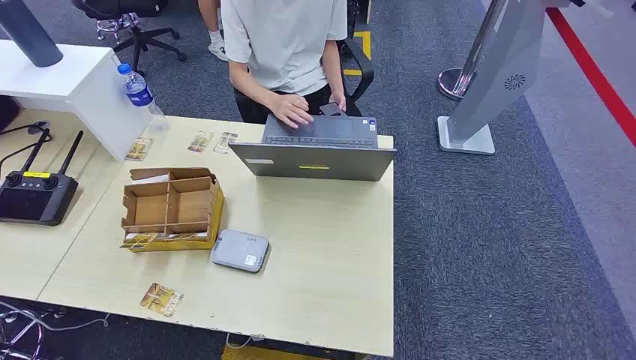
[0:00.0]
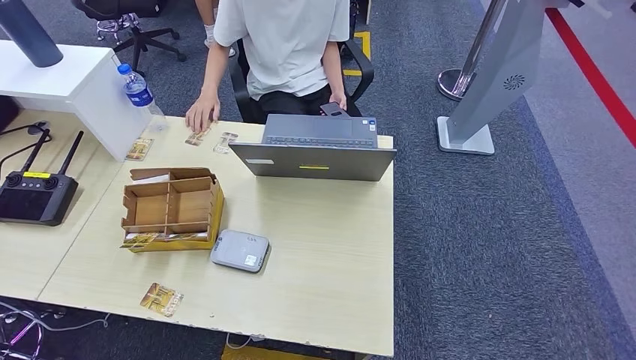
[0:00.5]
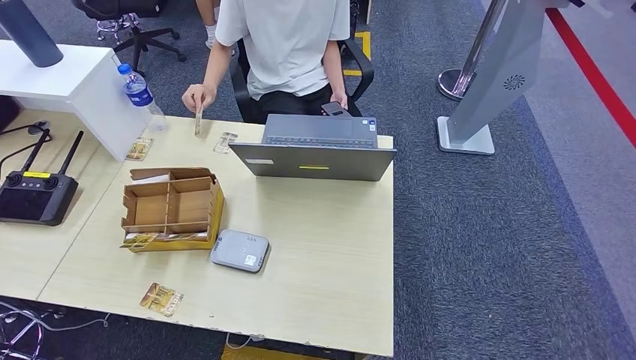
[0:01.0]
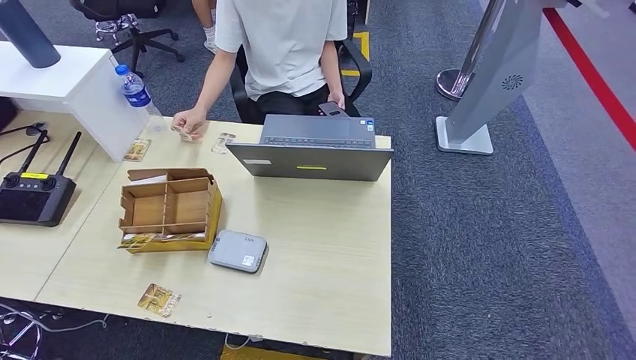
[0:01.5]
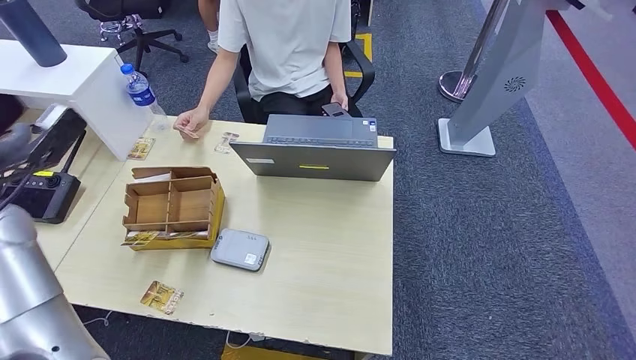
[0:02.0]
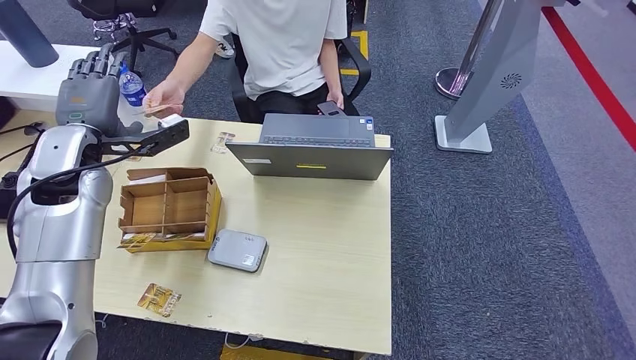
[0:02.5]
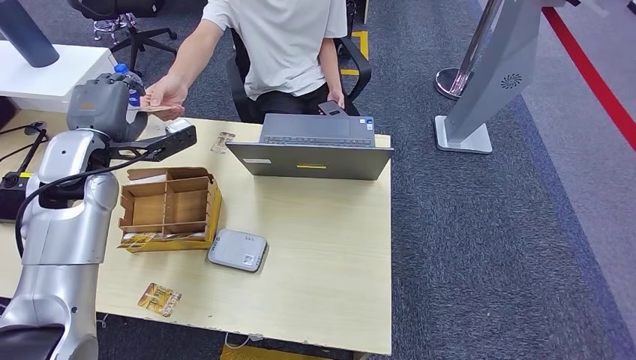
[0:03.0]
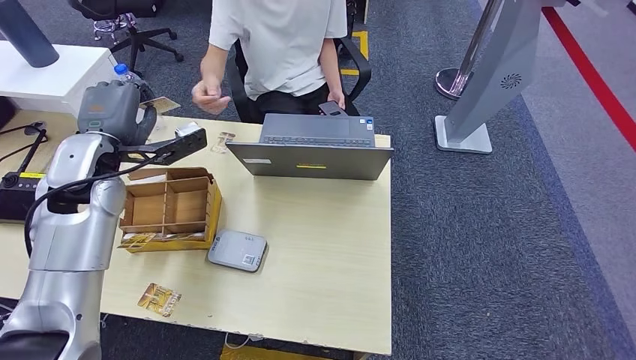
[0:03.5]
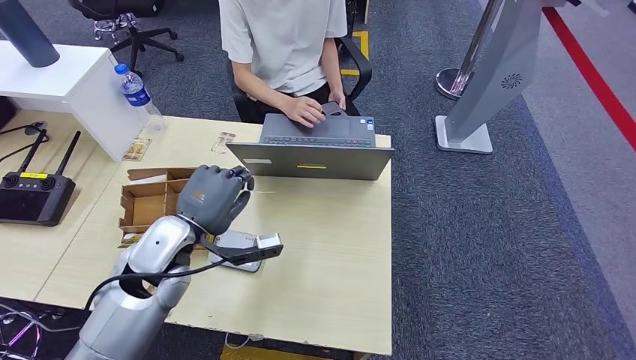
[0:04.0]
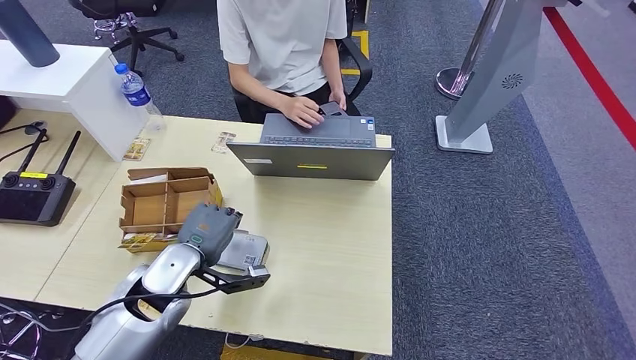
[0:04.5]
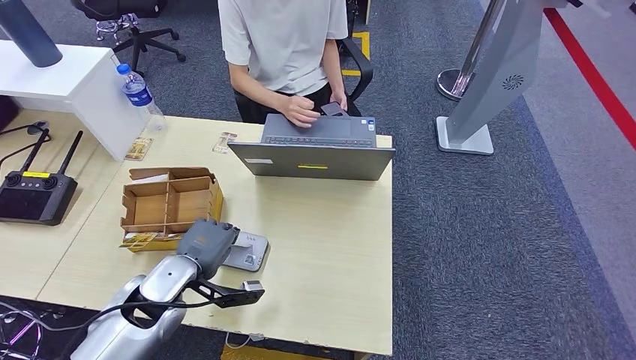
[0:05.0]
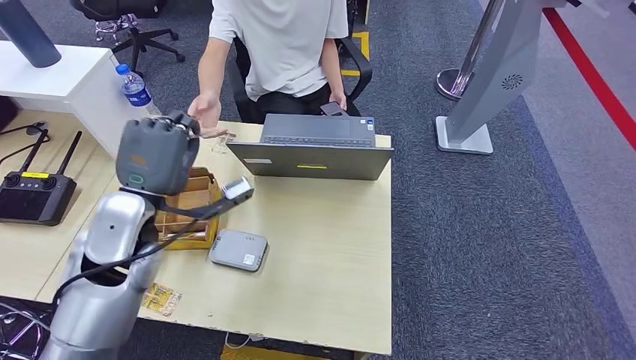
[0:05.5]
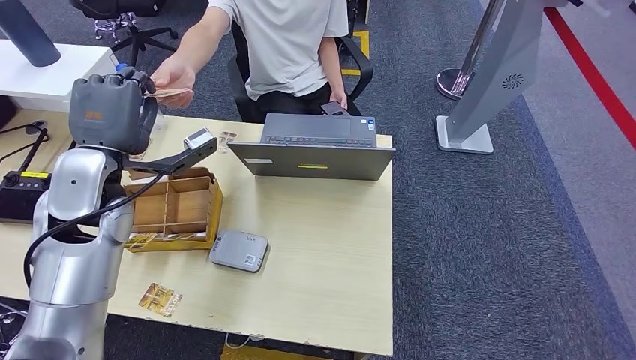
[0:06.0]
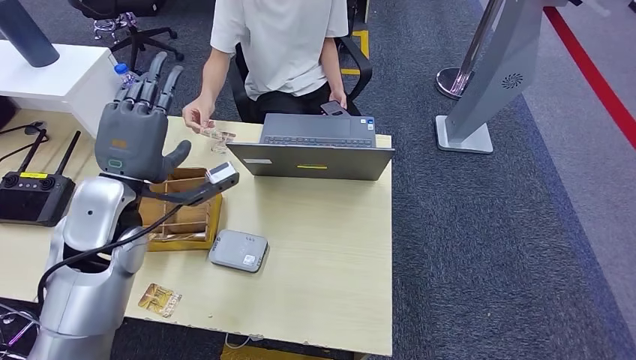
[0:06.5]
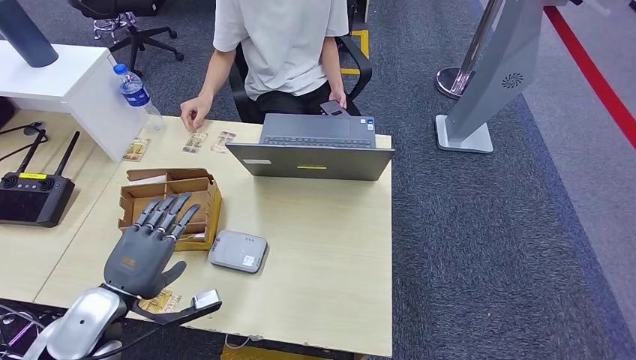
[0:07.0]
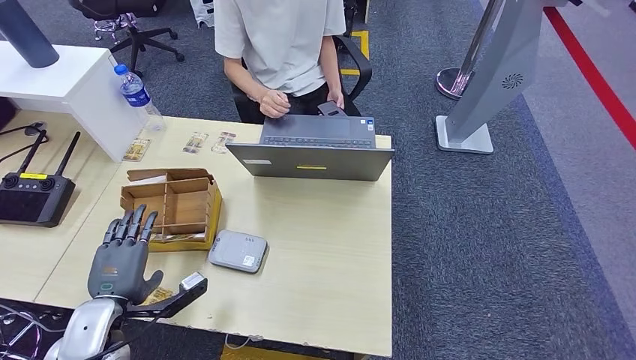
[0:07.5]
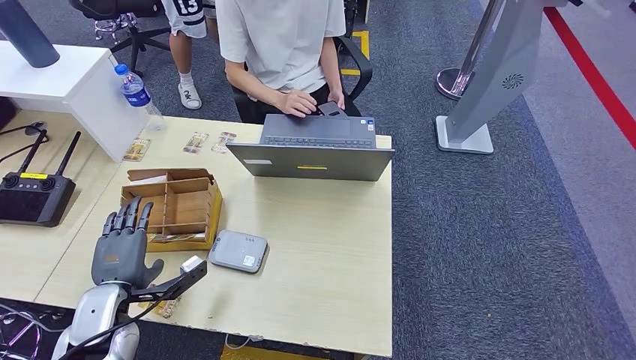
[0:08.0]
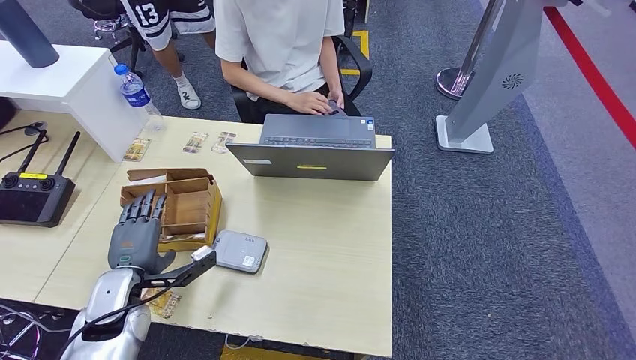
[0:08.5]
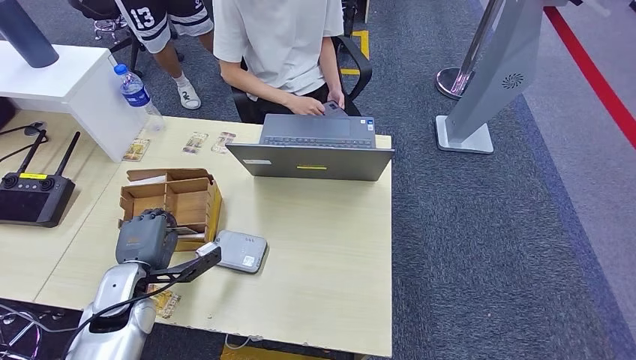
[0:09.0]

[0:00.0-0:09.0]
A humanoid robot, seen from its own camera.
Step, 0:00.0 to 0:03.0: Take the ID card from the person's hand.
Step, 0:04.0 to 0:04.5: Place the ID card on the card reader.
Step, 0:05.0 to 0:06.0: Hand the ID card to the person.
0:04.5 to 0:07.0: The left hand shifts roughly 10 cm to the left and backward, and goes upward and returns, roughly 15 cm each way.
0:07.0 to 0:09.0: The left hand travels forward and downward by approximately 10 cm.

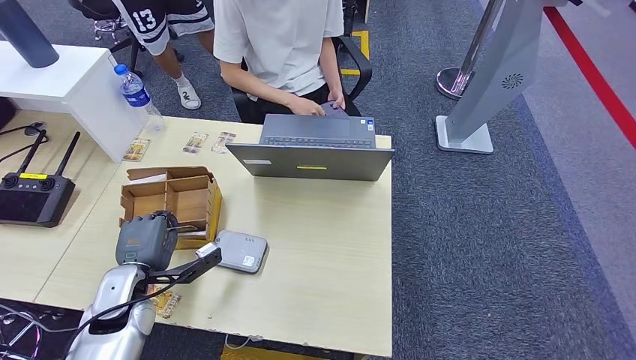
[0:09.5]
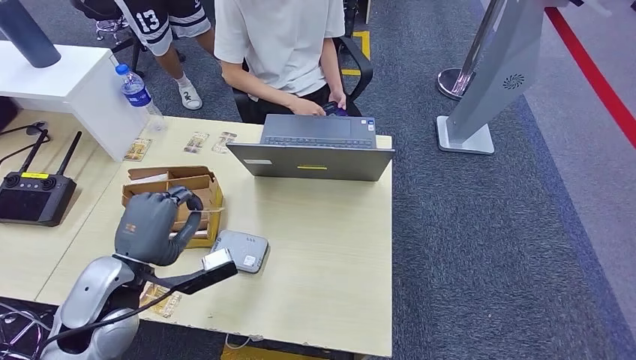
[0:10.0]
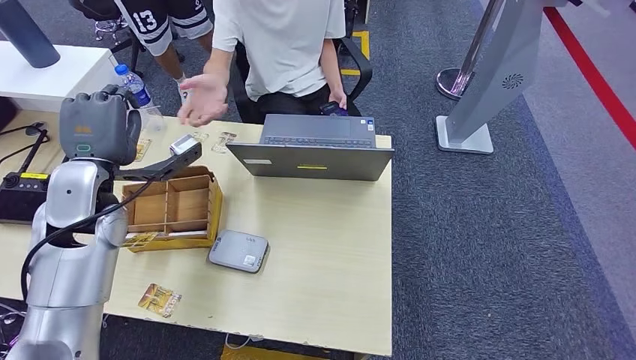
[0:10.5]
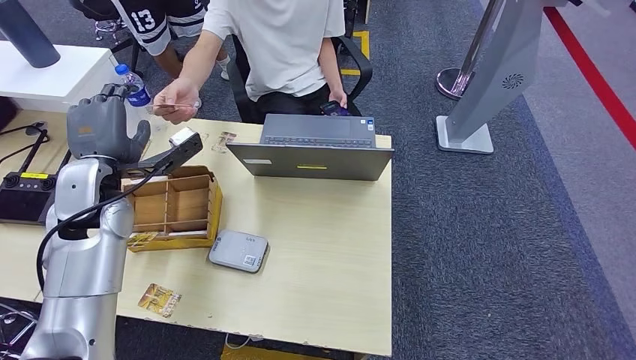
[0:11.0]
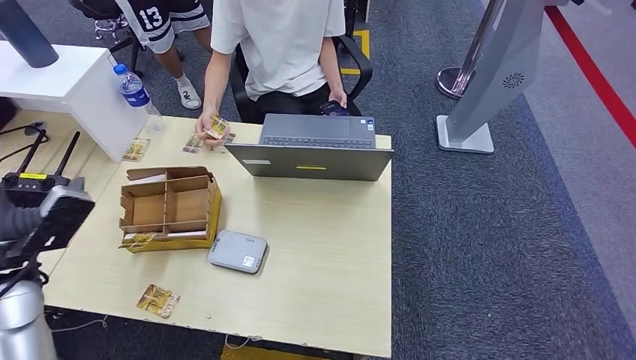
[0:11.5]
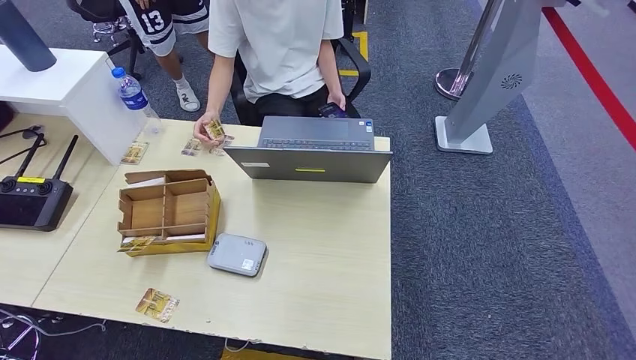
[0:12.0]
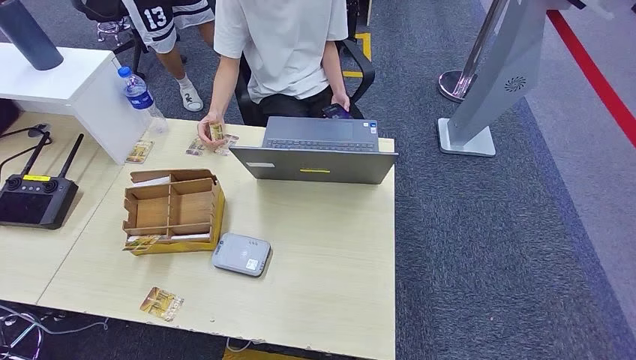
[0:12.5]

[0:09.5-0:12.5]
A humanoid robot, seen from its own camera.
Step, 0:10.5 to 0:12.5: Hand the room key to the person.
0:09.5 to 0:11.0: The left hand is displaced upward and forward by roughly 20 cm.
